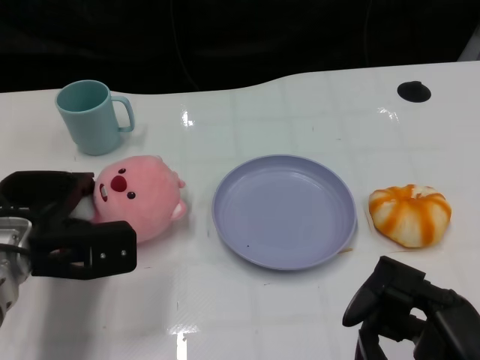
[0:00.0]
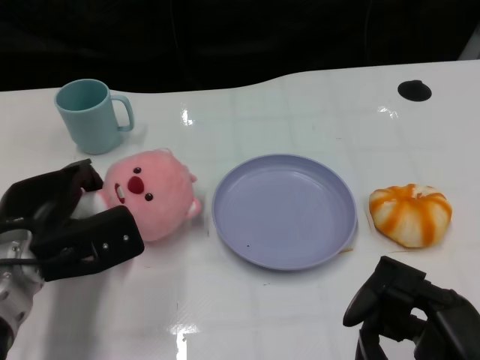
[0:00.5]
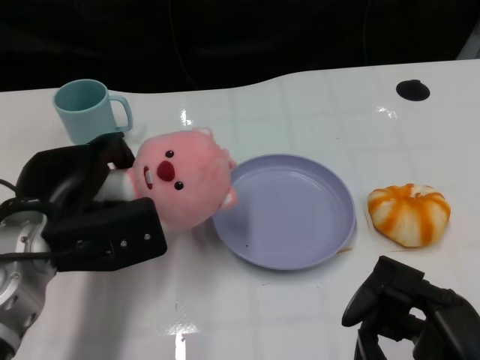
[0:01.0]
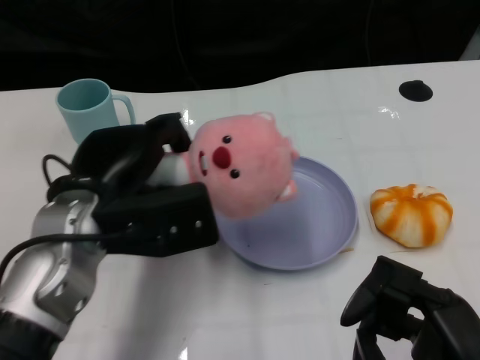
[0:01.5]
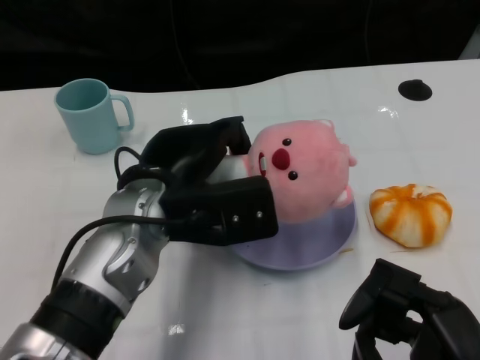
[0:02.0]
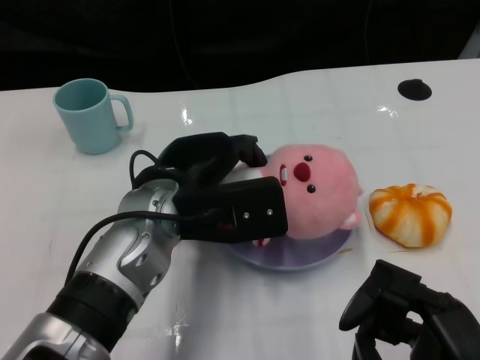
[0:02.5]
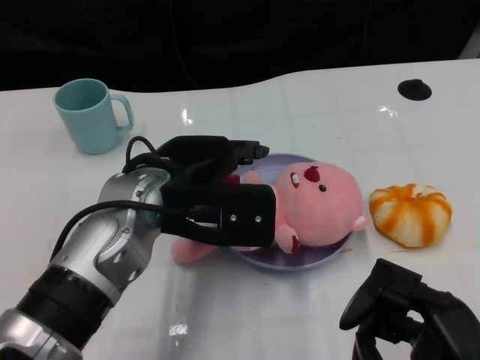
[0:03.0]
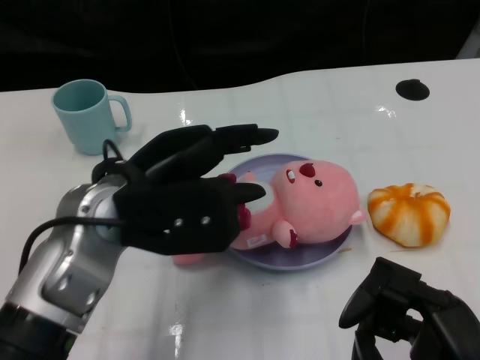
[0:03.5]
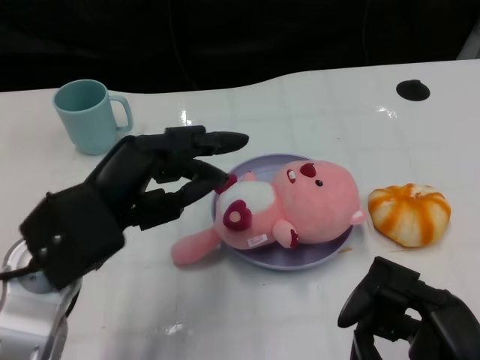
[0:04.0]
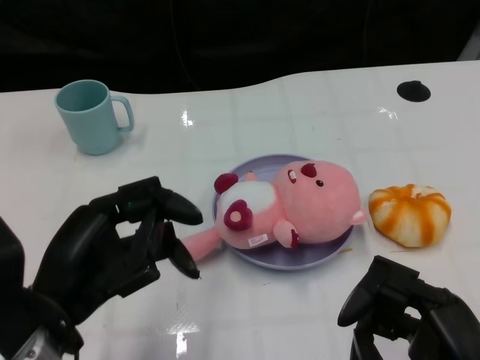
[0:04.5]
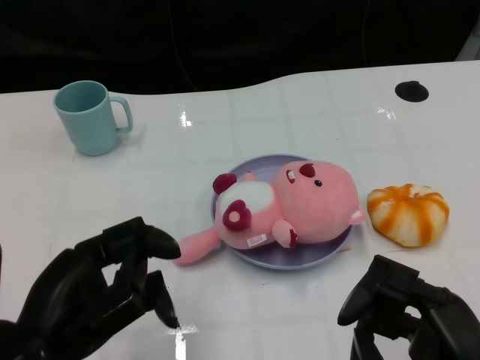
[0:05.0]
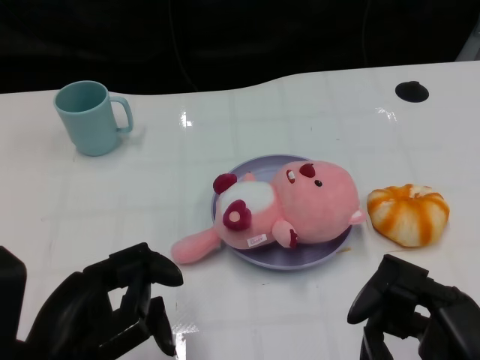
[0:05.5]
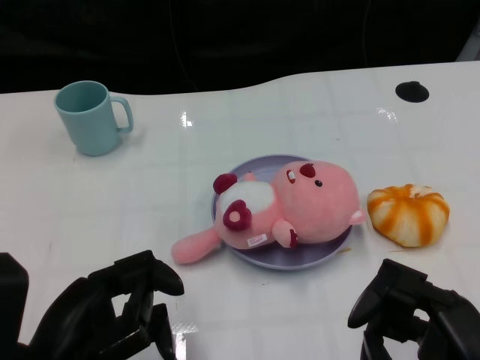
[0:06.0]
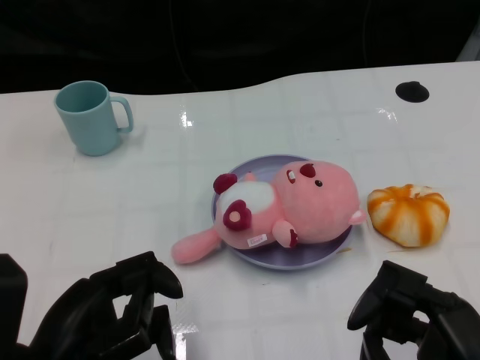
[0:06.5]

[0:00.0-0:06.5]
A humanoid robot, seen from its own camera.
Task of the whole recording: Pick up the doll on one side of the plate and place it into the plate.
Step, 0:01.0 to 0:03.0: Place the pink doll into the plate with the left gripper.
0:00.0 to 0:02.0: The left hand heads to the right and upward, covering about 15 cm.
0:02.0 to 0:04.5: The left hand goes roughly 15 cm backward and to the left.

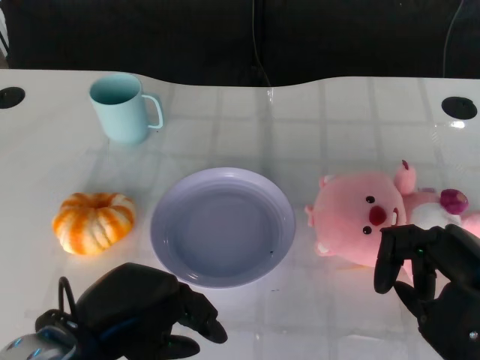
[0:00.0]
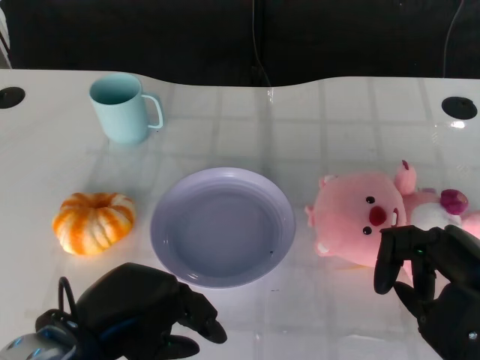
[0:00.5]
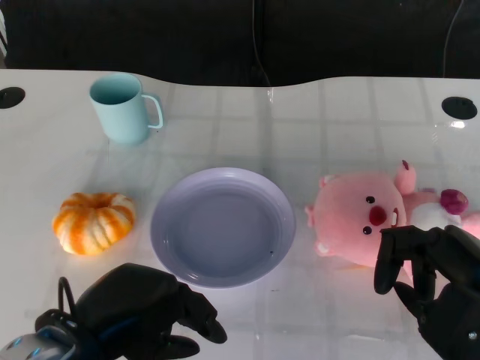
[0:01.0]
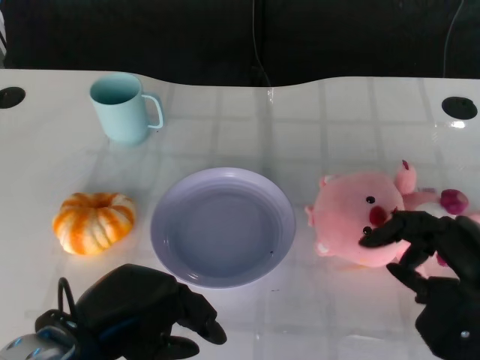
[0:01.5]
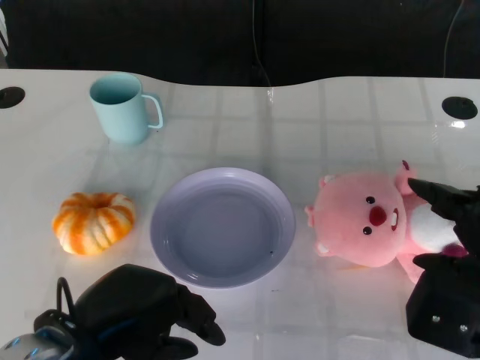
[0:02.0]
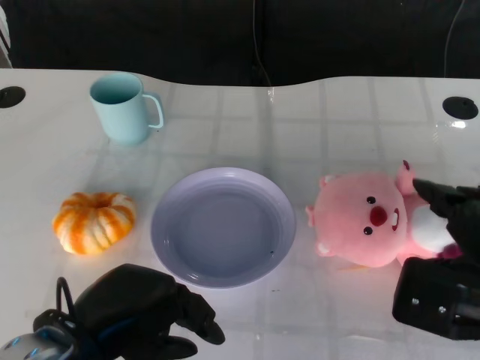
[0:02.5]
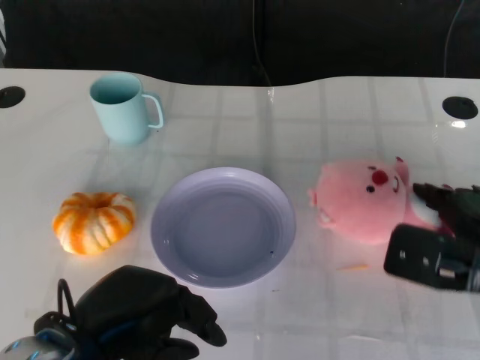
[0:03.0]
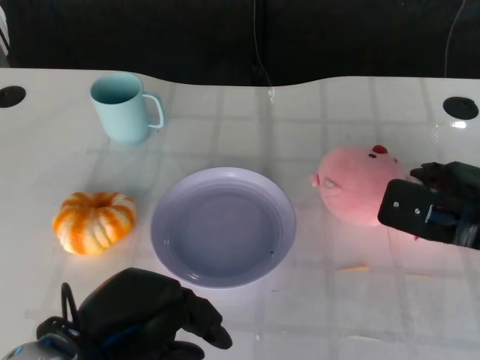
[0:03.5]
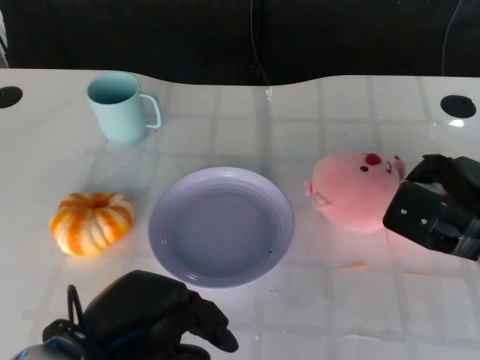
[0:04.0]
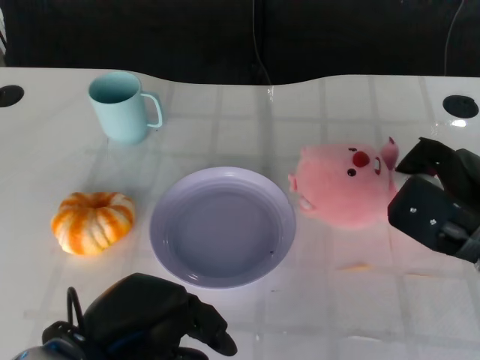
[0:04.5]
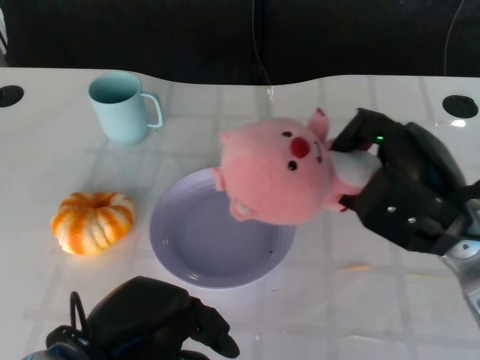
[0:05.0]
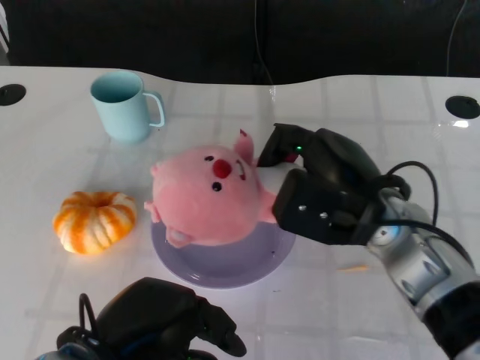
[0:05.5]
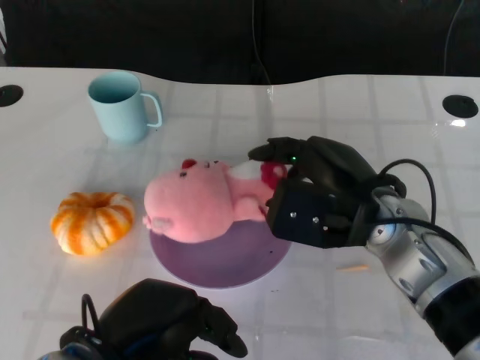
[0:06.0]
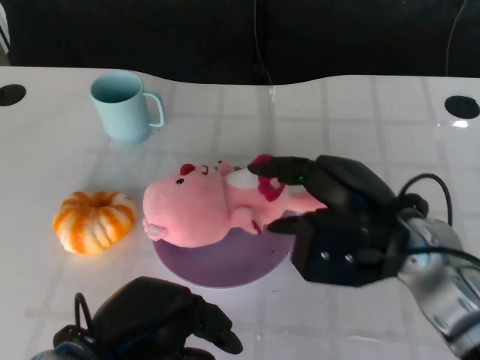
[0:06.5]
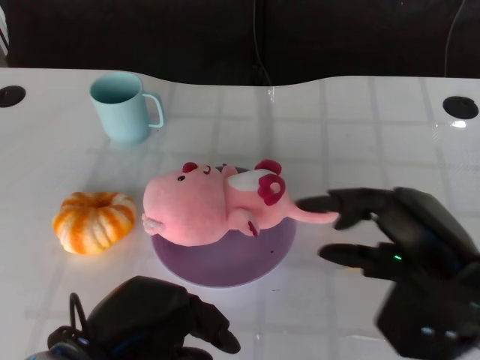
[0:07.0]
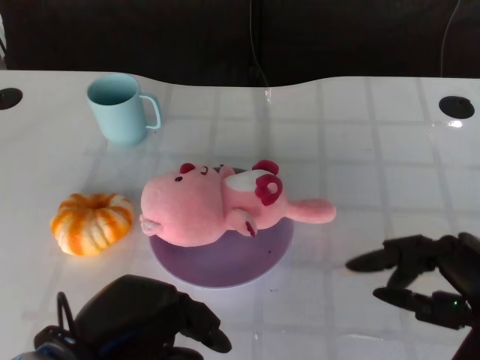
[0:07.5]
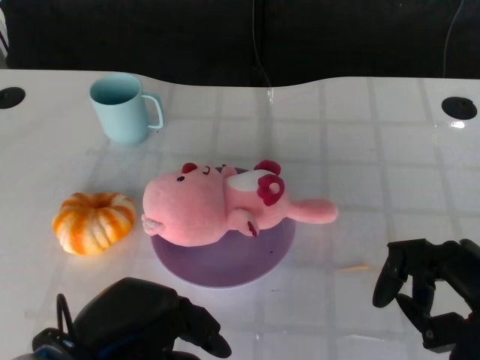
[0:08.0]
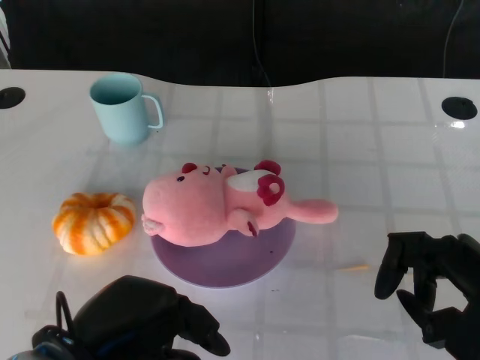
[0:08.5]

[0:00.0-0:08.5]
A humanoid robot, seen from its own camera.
Task of the whole recording: Pick up the doll on the other side of the plate and place it into the plate.
Step, 0:01.5 to 0:05.0: Grasp the pink doll with the right gripper.
Step, 0:05.5 to 0:07.0: Place the pink doll into the plate with the right gripper.
0:02.0 to 0:04.0: The right hand travels forward by roughly 10 cm.
0:04.0 to 0:06.5: The right hand travels to the left and upward by some 10 cm.
0:06.5 to 0:08.5: The right hand shifts approximately 15 cm to the right and backward.

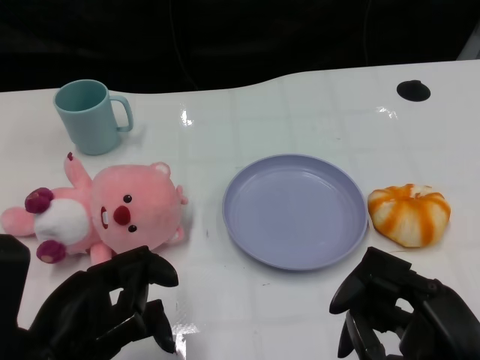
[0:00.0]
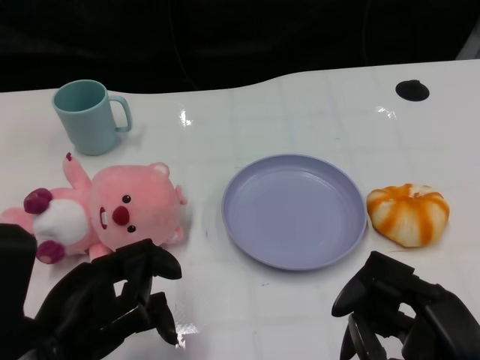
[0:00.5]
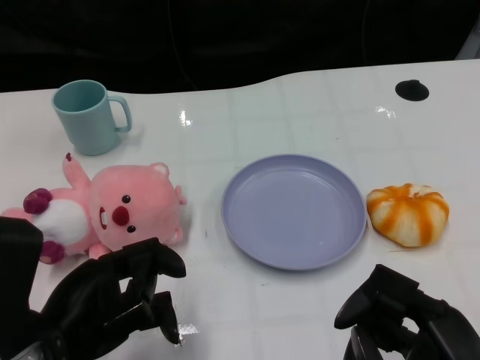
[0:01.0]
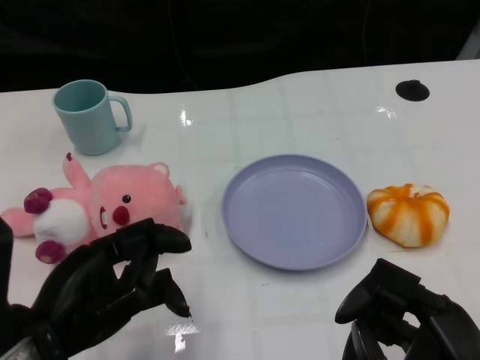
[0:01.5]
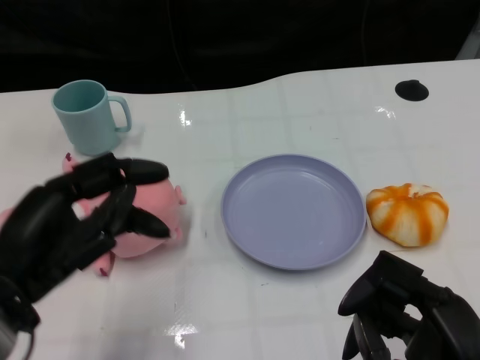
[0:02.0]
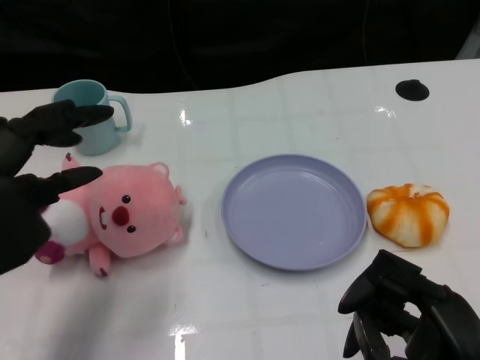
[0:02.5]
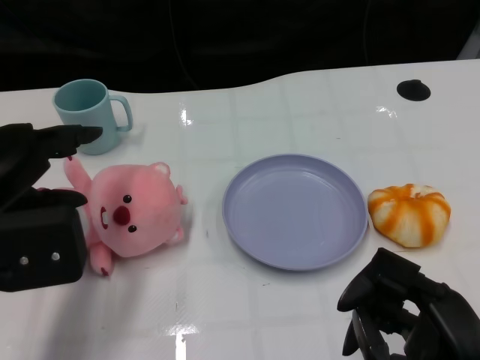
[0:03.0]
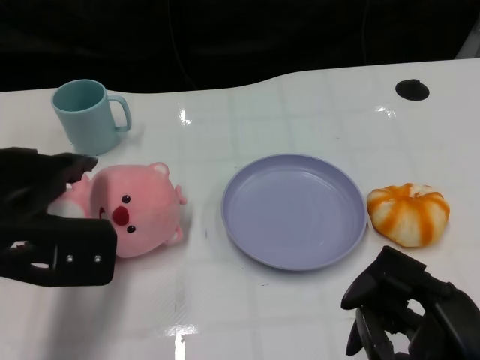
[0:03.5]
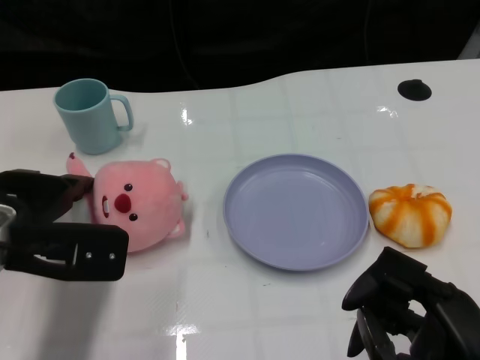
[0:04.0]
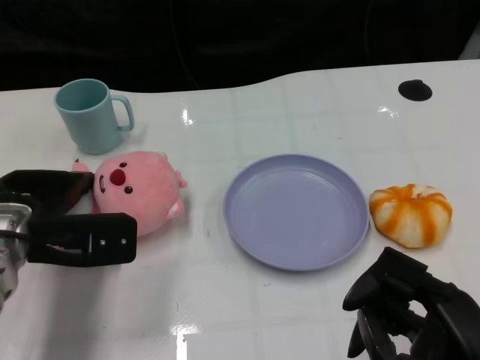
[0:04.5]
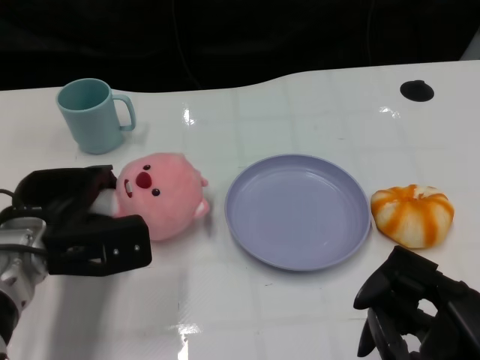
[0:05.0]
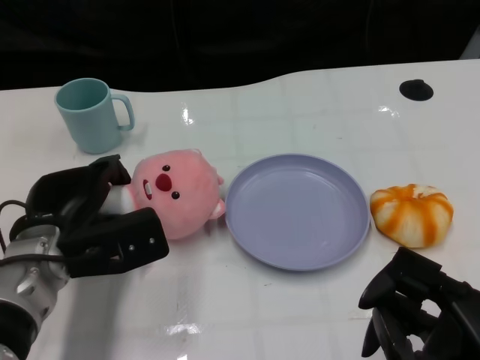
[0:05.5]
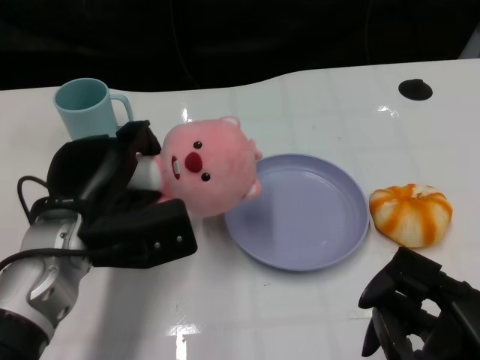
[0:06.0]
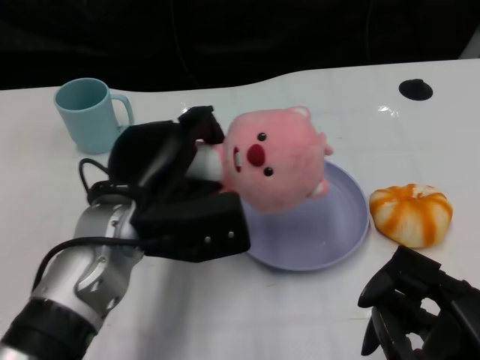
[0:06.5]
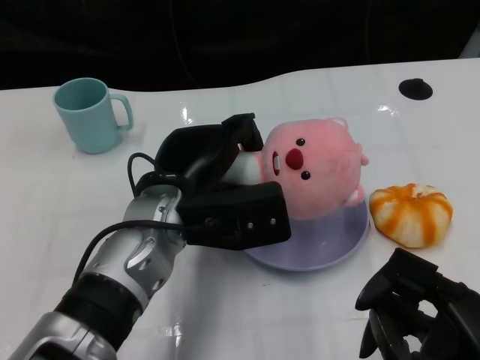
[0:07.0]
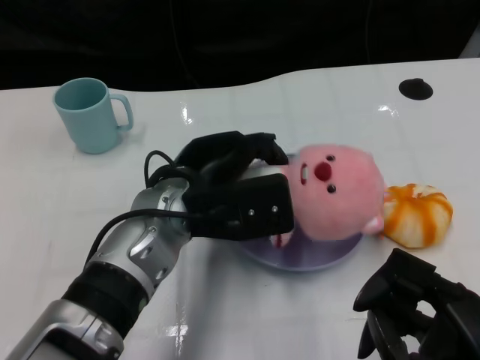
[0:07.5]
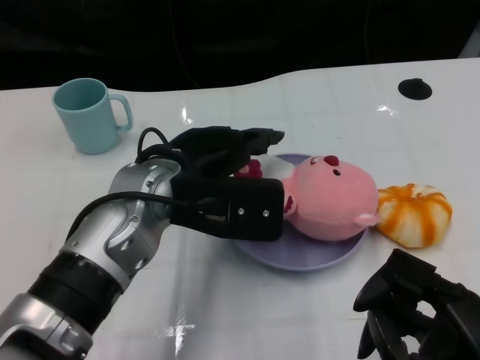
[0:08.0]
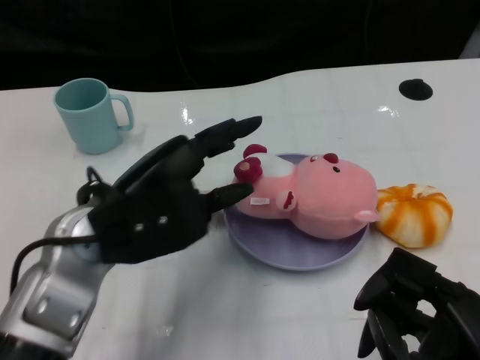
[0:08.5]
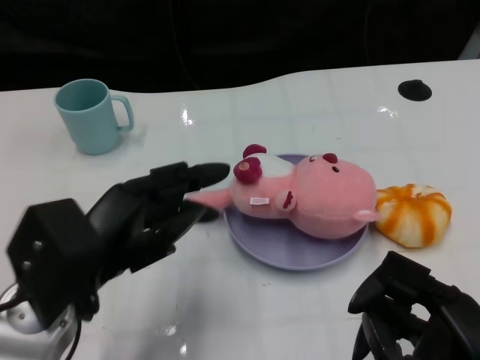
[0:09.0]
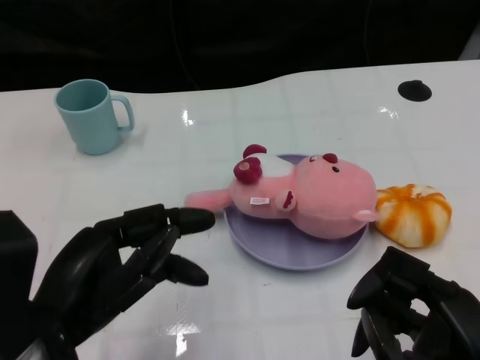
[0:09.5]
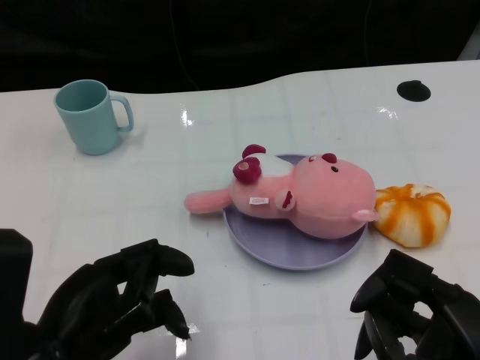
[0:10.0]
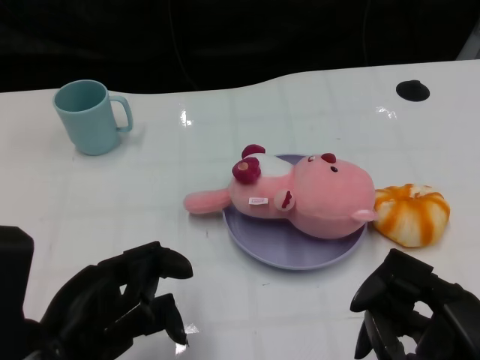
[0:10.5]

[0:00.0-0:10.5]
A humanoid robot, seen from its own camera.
Task of the whole recording: Pick up the doll on one side of the plate and place it into the plate.
Step, 0:01.5 to 0:05.5: Grasp the pink doll with the left gripper.
Step, 0:06.0 to 0:08.0: Place the pink doll into the plate with the left gripper.
0:02.0 to 0:04.0: The left hand shifts about 10 cm forward.
0:04.0 to 0:06.5: The left hand moves to the right, roughly 10 cm.
0:08.5 to 0:10.5: The left hand travels backward and to the left by about 10 cm.
